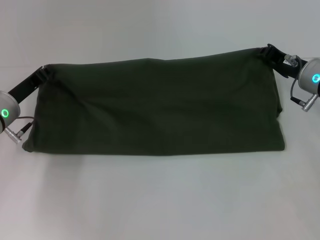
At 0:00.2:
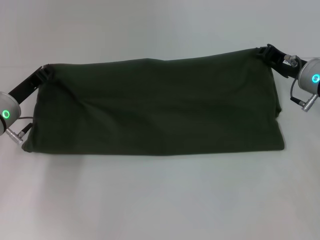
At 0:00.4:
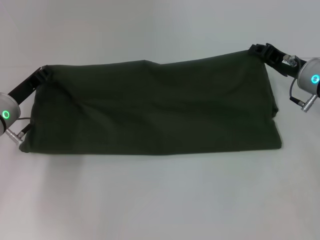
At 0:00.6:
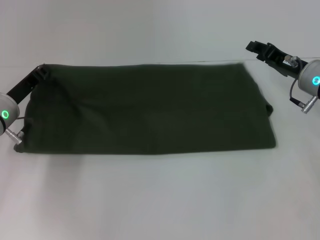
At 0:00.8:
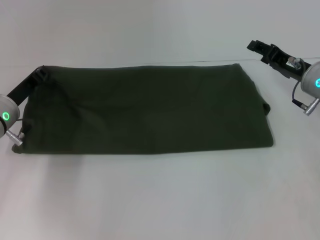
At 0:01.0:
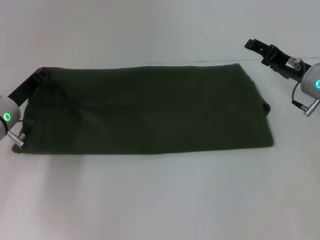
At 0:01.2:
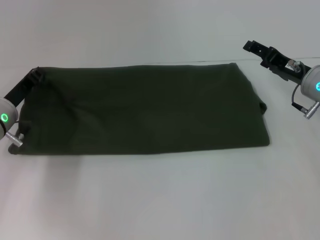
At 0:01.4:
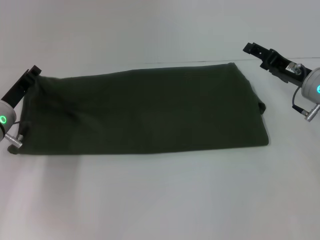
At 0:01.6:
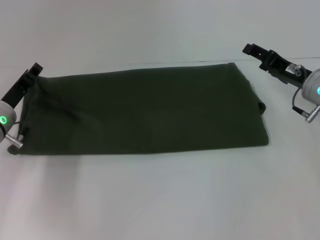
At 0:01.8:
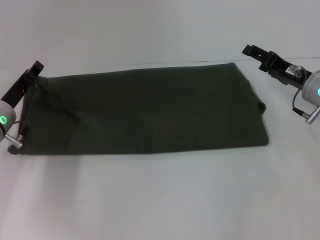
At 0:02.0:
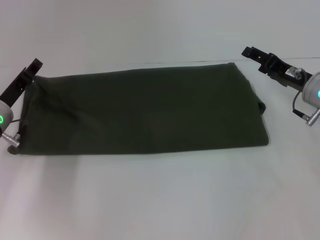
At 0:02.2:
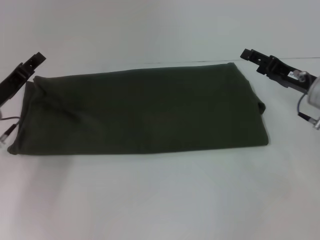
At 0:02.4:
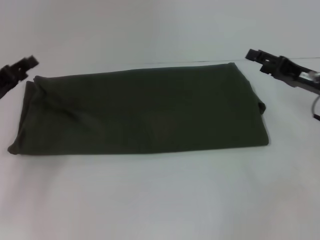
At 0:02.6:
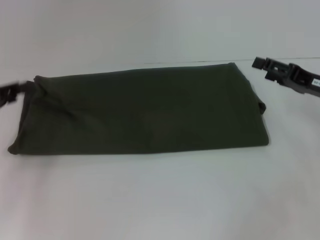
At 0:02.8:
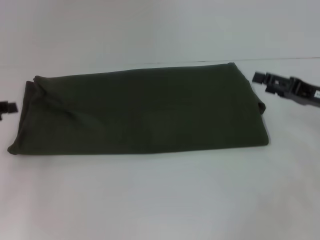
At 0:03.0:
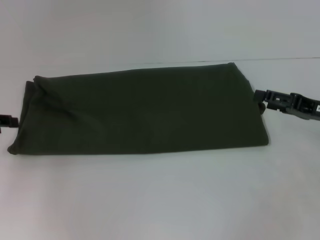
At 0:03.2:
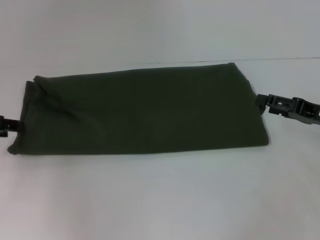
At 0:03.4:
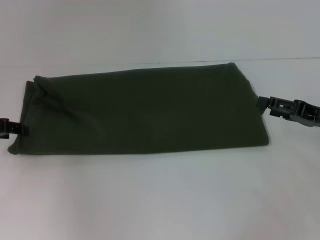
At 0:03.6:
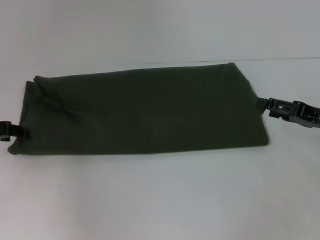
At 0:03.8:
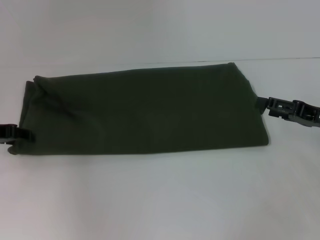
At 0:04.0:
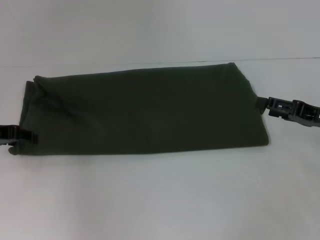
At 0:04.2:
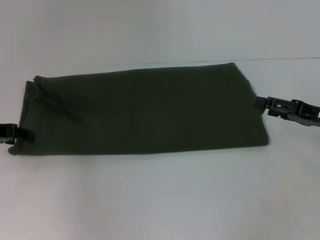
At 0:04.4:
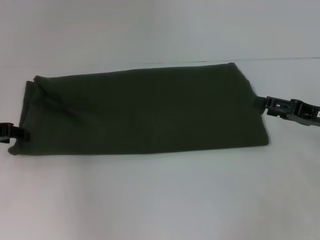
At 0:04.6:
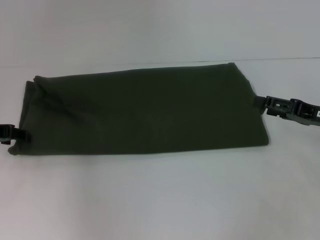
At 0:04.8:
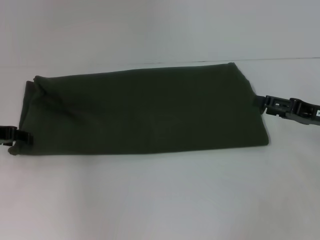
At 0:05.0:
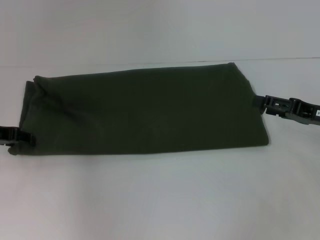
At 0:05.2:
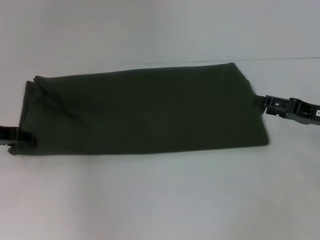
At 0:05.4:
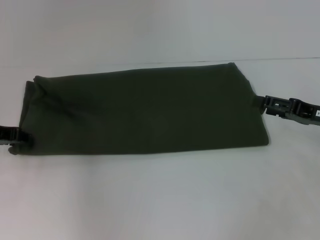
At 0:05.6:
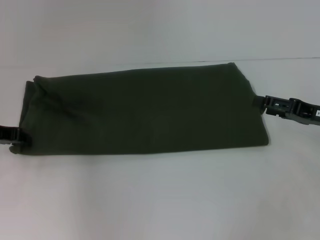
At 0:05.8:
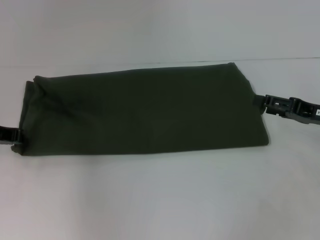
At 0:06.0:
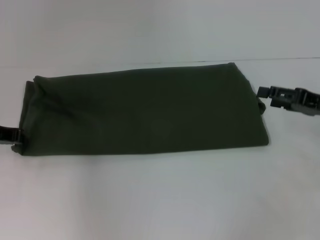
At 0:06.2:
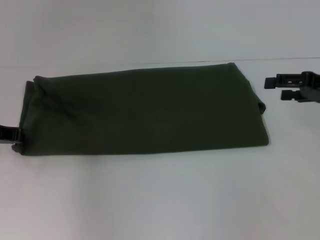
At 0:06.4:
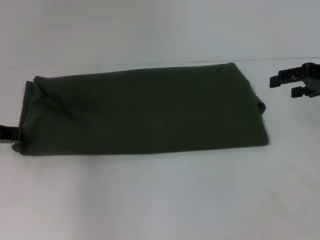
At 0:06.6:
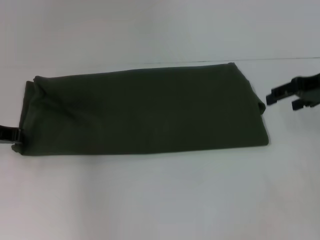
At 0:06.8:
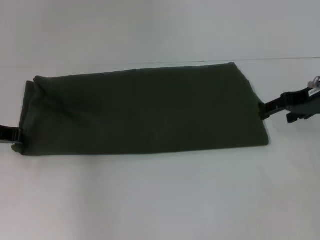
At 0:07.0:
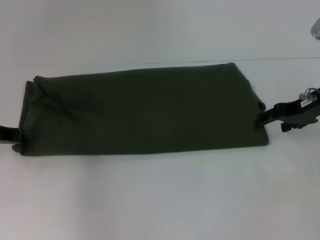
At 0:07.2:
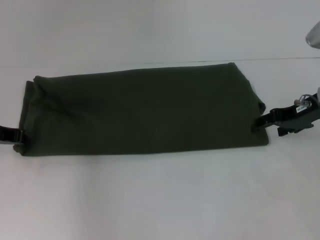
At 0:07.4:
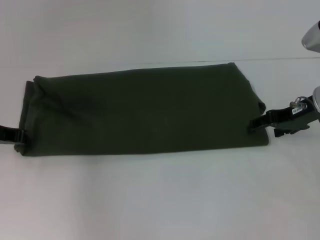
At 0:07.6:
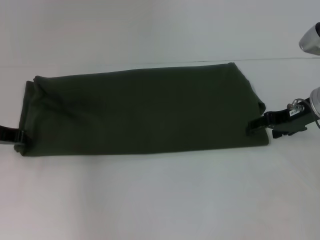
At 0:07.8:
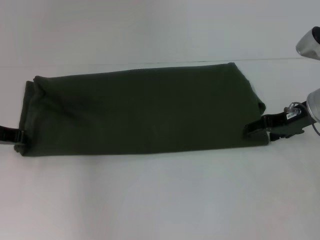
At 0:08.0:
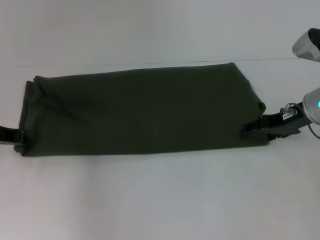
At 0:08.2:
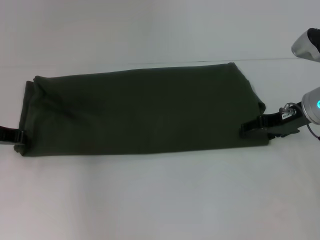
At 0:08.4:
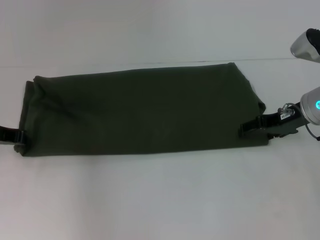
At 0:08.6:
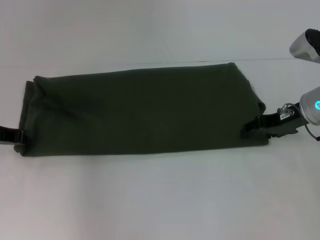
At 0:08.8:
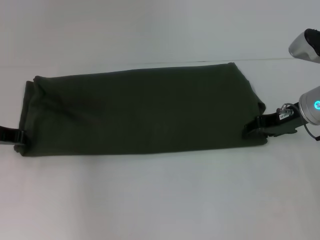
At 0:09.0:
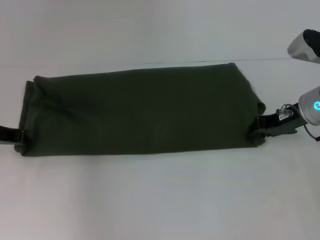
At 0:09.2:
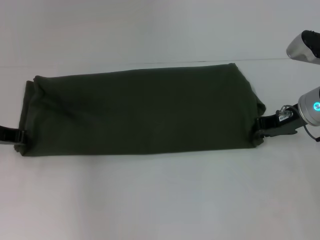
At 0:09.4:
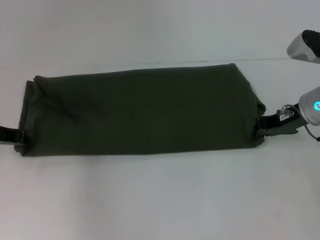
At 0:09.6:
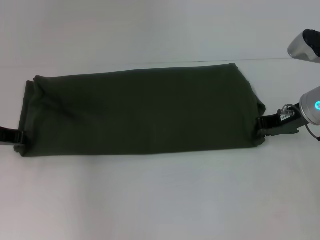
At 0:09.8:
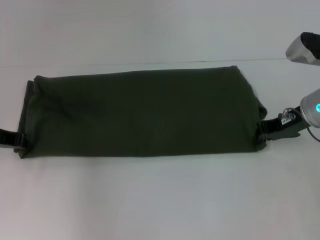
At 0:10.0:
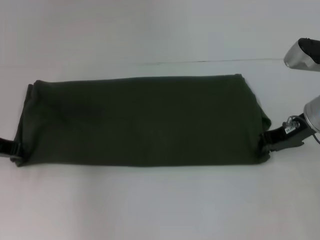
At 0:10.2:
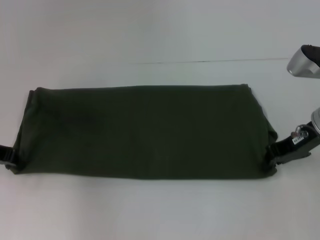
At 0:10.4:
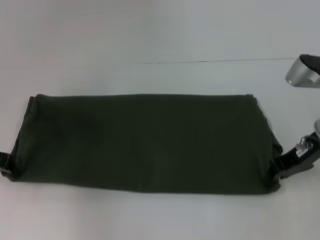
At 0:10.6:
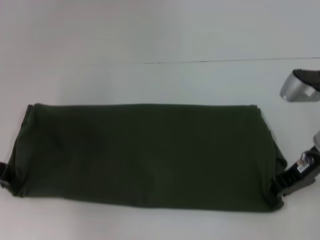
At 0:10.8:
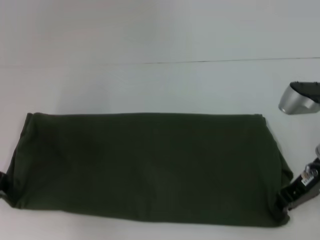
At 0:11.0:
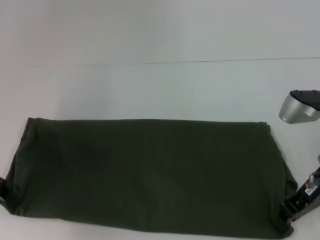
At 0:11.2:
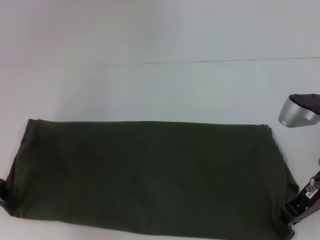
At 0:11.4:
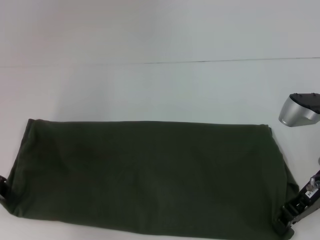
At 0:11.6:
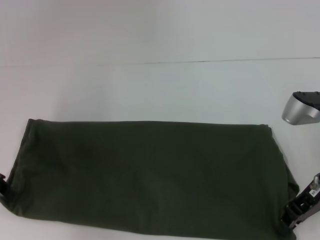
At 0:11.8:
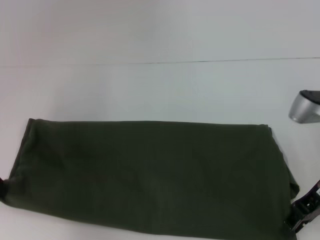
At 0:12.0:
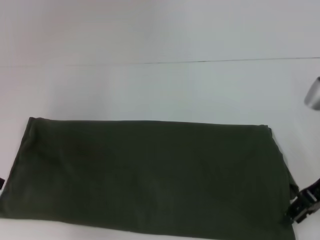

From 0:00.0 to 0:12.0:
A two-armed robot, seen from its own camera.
From 0:00.0 to 0:01.6: The right gripper opens.
From 0:01.6 to 0:03.0: The right gripper shifts some 10 cm backward and to the right. The left gripper travels to the left and upward by roughly 15 cm, and opens up.
From 0:03.0 to 0:04.4: The grippers move only a little.
From 0:06.0 to 0:07.6: The right gripper moves to the left and forward, about 10 cm, and reaches about 10 cm upward, then returns.
From 0:07.6 to 0:09.0: The right gripper closes its fingers.
From 0:09.0 to 0:10.4: The right gripper closes up.
From 0:10.4 to 0:12.0: The right gripper opens up.

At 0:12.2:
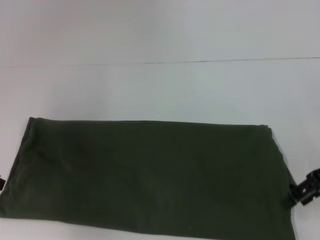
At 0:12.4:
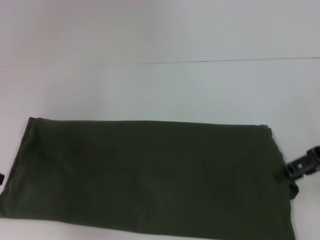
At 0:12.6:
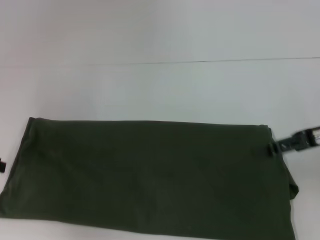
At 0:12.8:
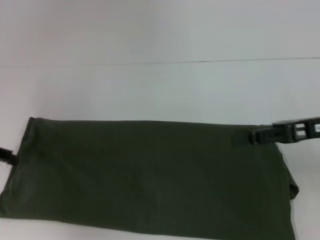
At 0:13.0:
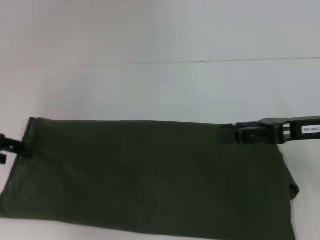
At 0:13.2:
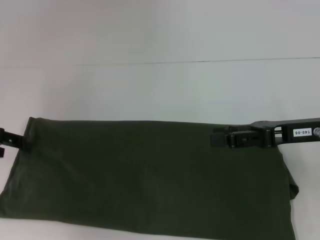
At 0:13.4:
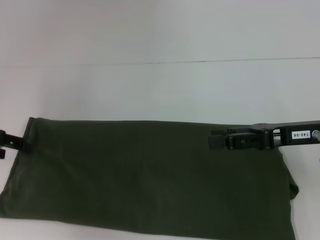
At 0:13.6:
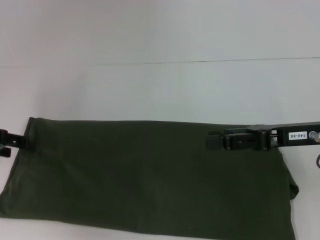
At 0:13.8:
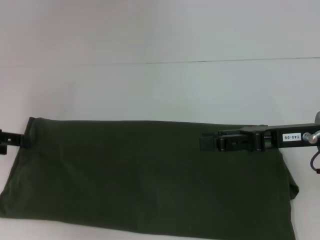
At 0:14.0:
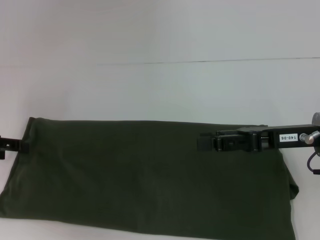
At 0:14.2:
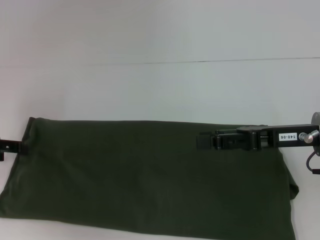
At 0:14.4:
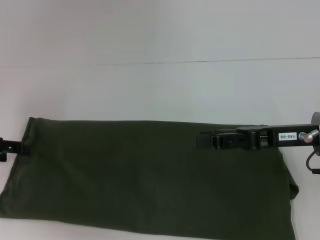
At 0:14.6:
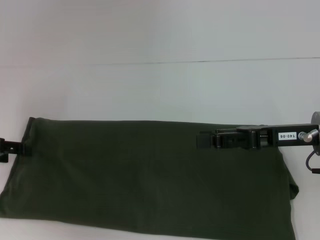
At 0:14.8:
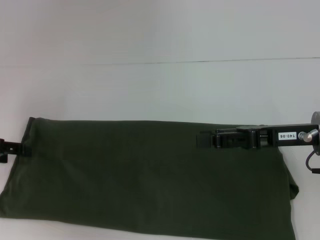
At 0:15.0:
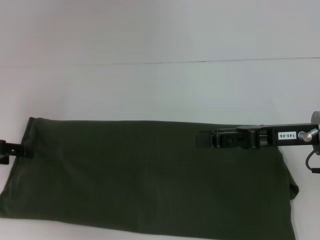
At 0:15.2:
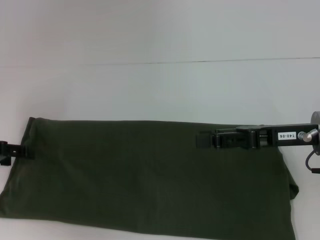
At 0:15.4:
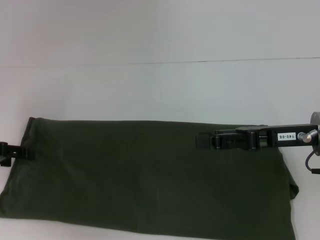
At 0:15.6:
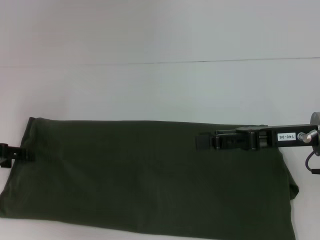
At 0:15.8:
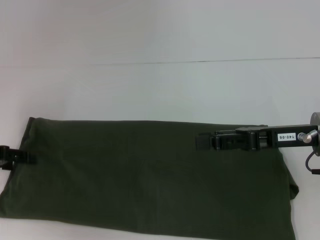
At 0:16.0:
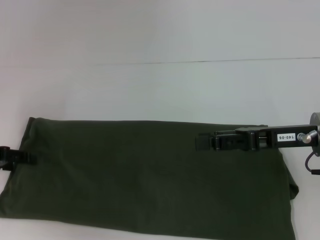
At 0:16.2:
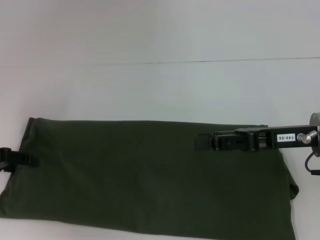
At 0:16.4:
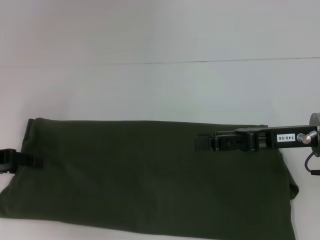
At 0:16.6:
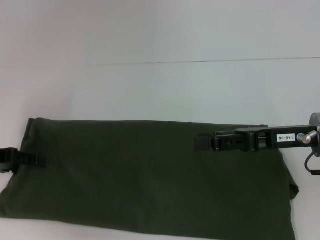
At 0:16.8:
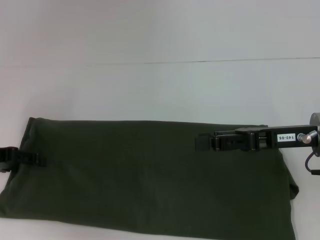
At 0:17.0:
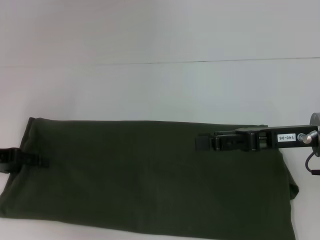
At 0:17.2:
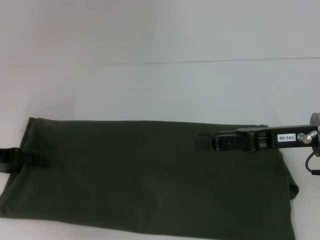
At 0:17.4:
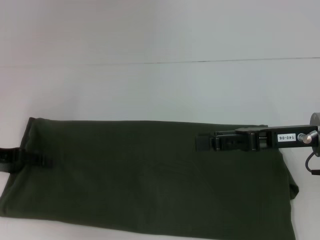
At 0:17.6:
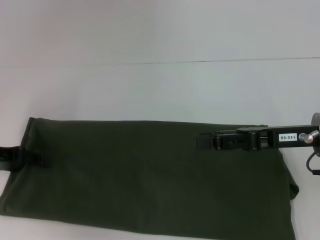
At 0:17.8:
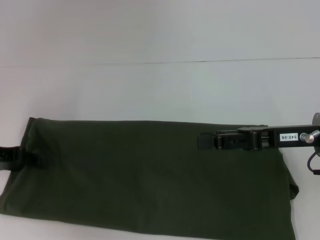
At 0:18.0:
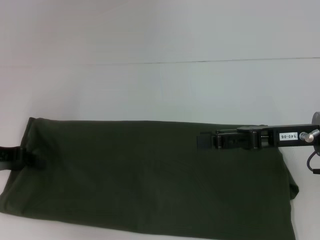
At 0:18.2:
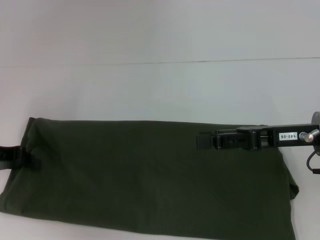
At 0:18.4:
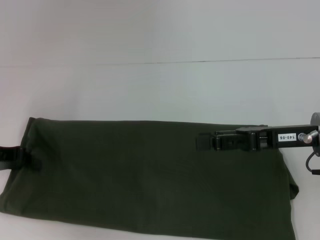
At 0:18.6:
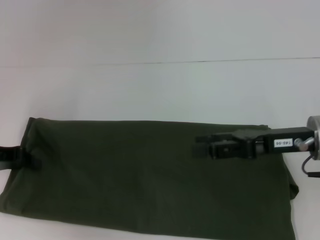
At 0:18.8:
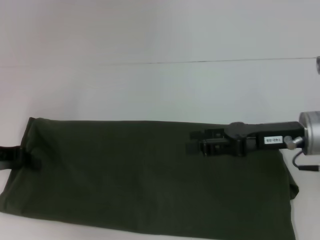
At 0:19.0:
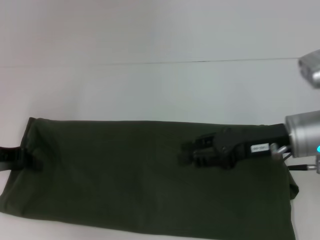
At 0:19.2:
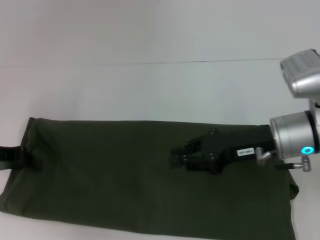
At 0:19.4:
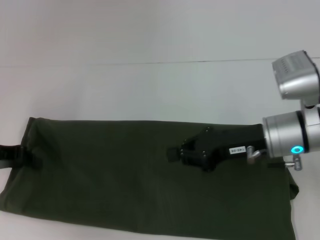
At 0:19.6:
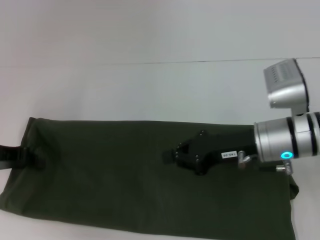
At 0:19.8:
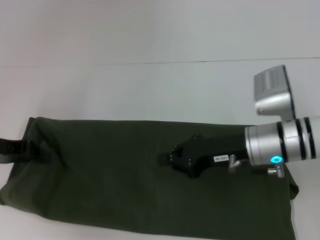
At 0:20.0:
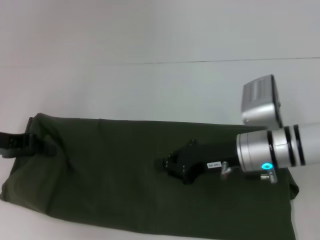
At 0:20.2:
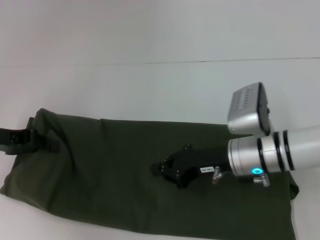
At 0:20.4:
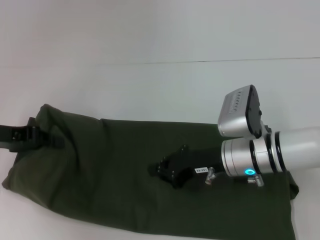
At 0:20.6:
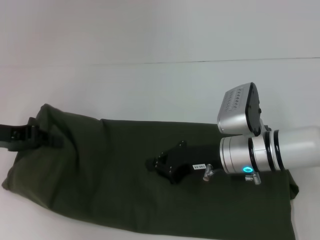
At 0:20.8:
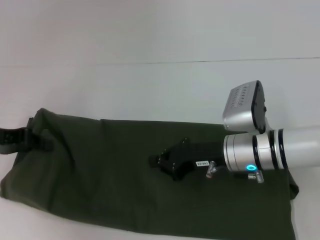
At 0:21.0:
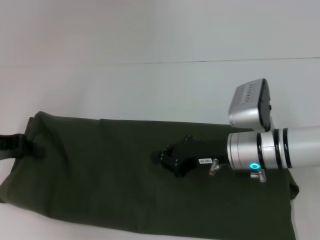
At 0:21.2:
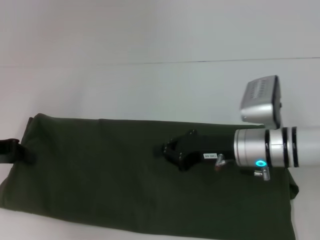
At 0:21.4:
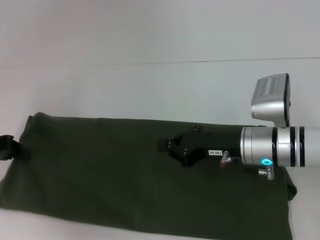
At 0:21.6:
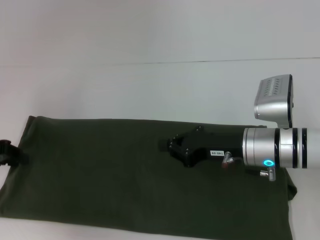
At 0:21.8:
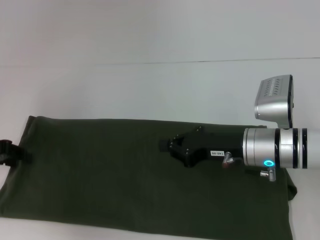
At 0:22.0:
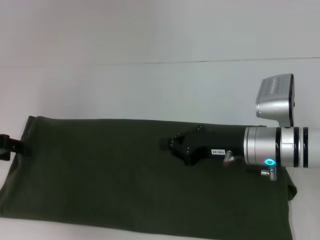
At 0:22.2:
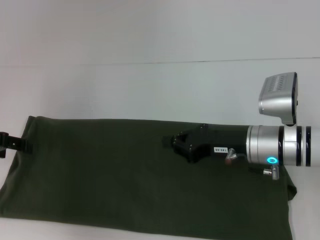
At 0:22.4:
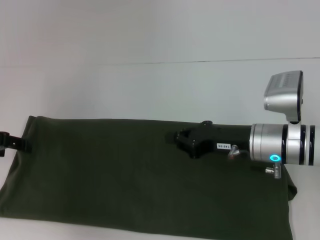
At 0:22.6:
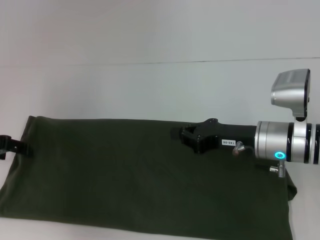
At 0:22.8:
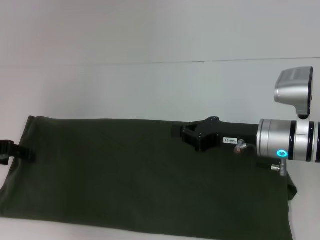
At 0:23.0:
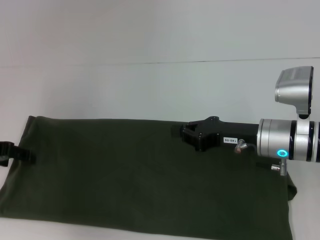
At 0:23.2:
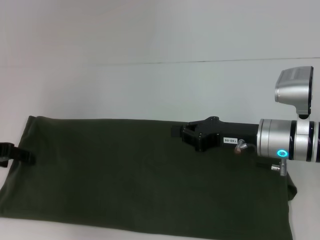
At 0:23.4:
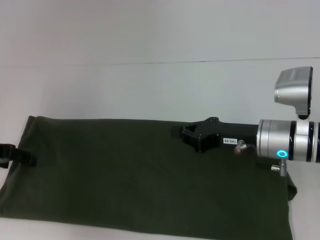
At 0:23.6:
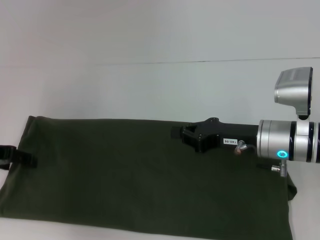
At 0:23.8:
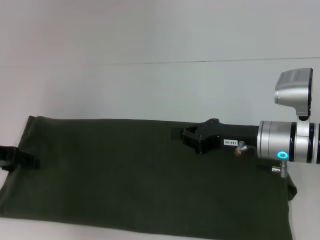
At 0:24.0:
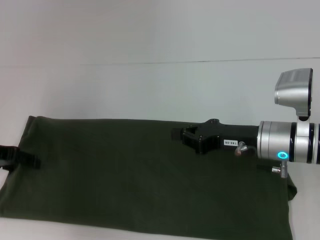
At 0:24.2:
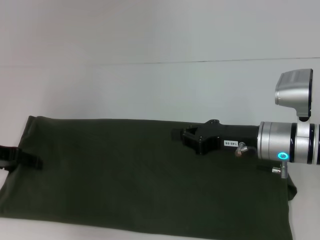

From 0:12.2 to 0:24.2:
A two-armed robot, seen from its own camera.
From 0:12.2 to 0:13.8: The right gripper heads to the left, covering approximately 5 cm, while the left gripper opens up.
From 0:13.8 to 0:15.2: The grippers make only small movements.
From 0:15.2 to 0:16.6: Neither gripper changes place.
From 0:18.2 to 0:19.8: The right gripper shifts approximately 5 cm to the left, and closes.
From 0:19.8 to 0:21.2: The grippers move only a little.
From 0:21.2 to 0:22.6: The left gripper opens its fingers.
From 0:22.6 to 0:24.2: The grippers make only small movements.
